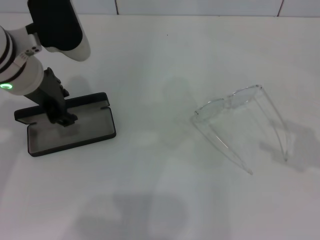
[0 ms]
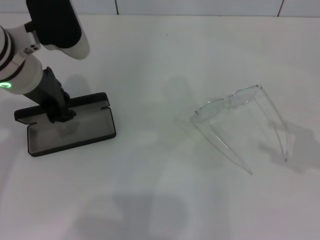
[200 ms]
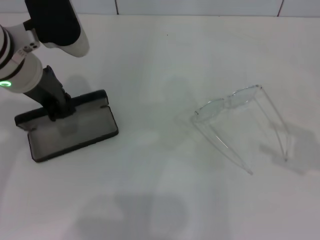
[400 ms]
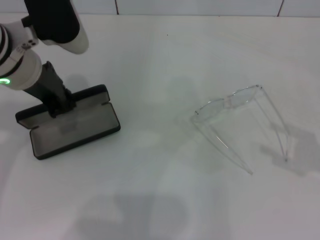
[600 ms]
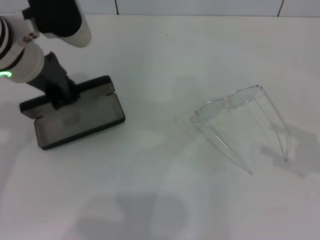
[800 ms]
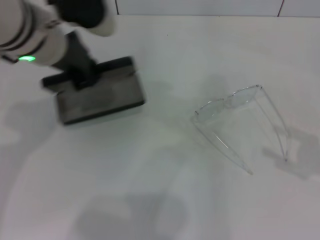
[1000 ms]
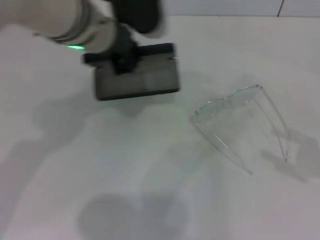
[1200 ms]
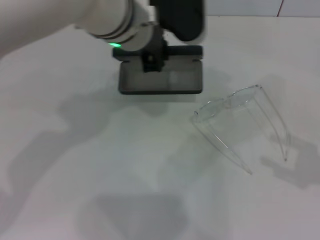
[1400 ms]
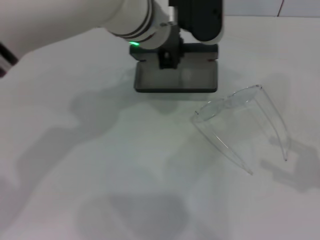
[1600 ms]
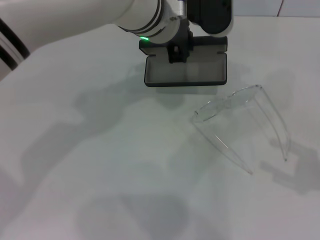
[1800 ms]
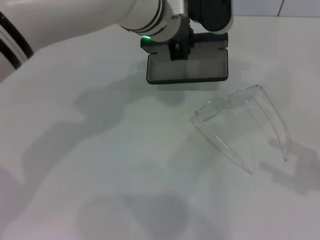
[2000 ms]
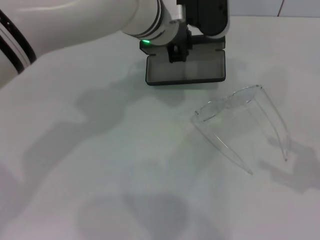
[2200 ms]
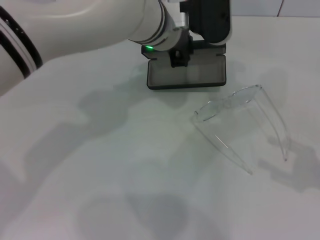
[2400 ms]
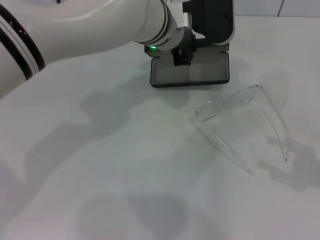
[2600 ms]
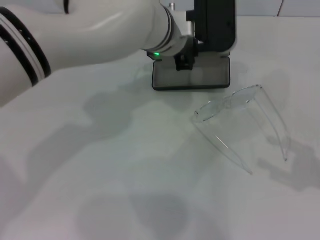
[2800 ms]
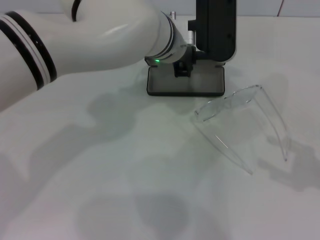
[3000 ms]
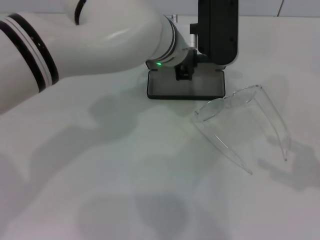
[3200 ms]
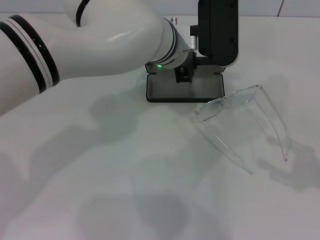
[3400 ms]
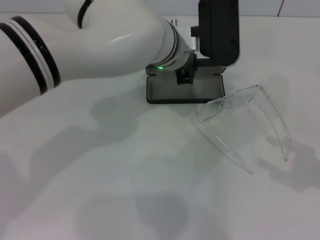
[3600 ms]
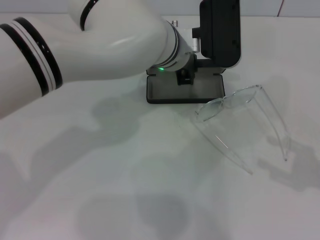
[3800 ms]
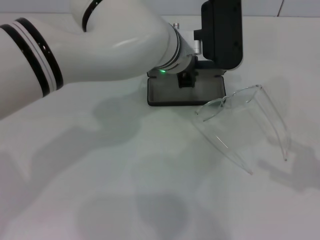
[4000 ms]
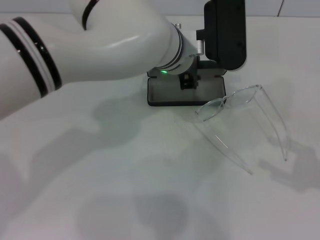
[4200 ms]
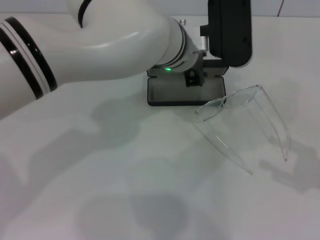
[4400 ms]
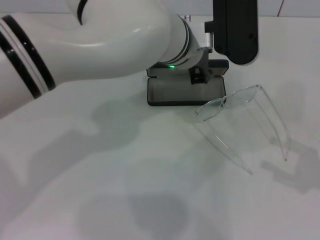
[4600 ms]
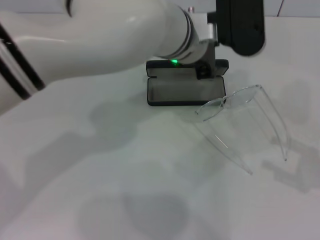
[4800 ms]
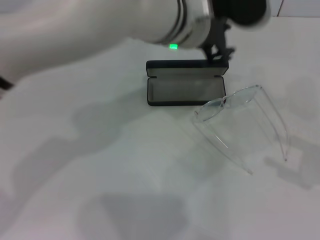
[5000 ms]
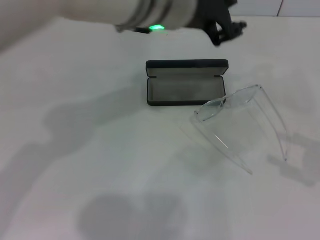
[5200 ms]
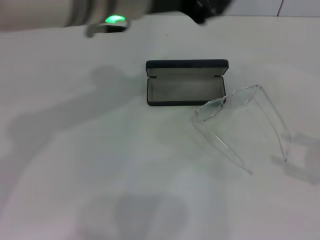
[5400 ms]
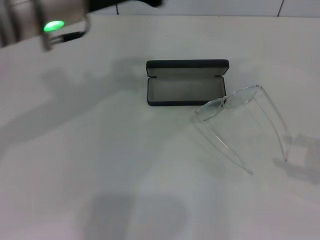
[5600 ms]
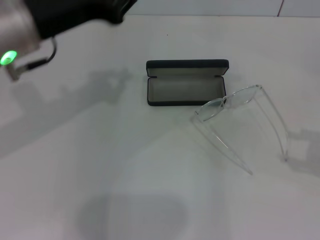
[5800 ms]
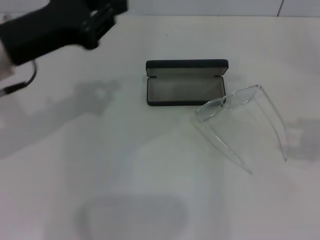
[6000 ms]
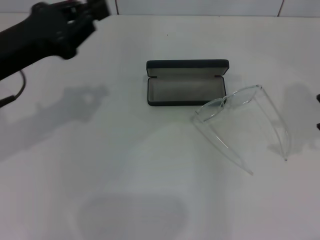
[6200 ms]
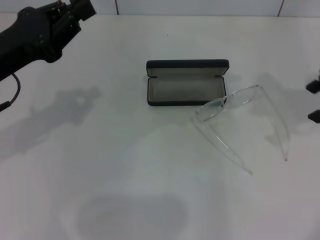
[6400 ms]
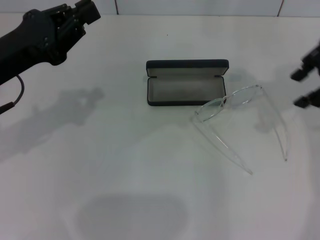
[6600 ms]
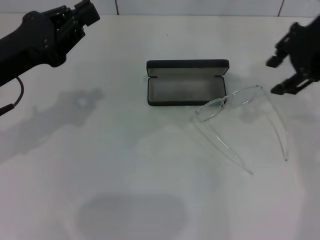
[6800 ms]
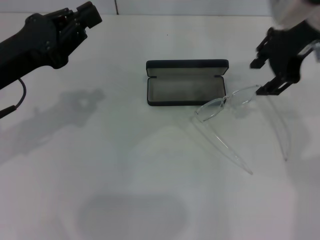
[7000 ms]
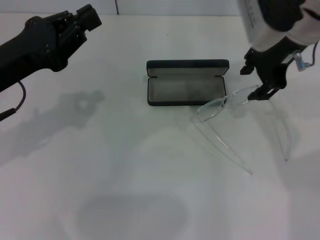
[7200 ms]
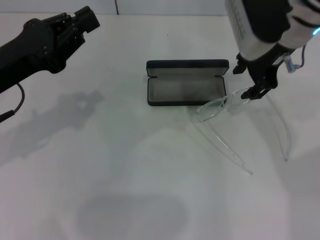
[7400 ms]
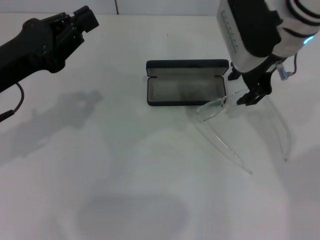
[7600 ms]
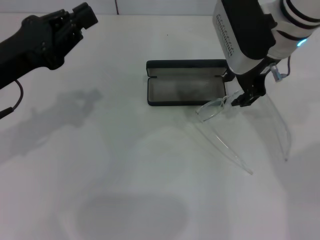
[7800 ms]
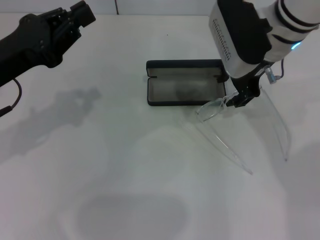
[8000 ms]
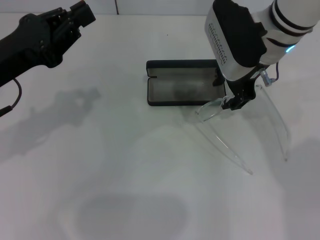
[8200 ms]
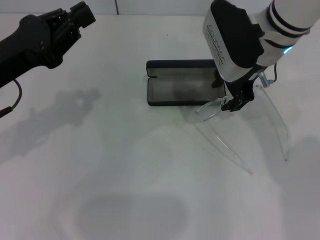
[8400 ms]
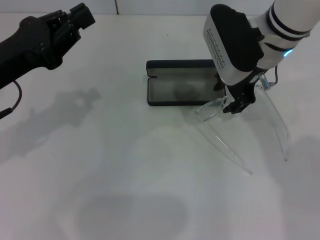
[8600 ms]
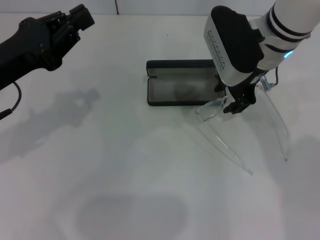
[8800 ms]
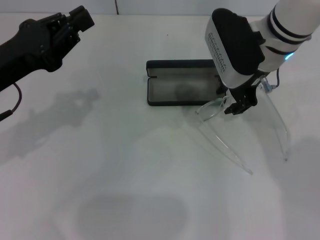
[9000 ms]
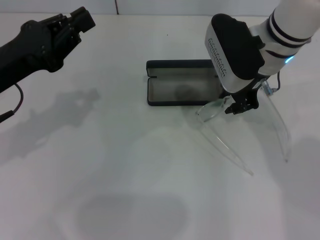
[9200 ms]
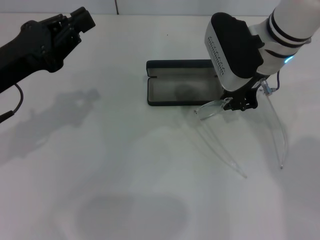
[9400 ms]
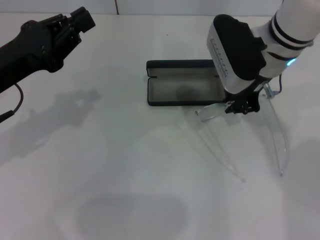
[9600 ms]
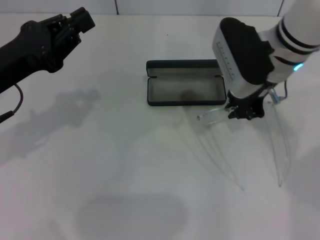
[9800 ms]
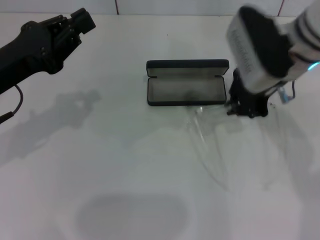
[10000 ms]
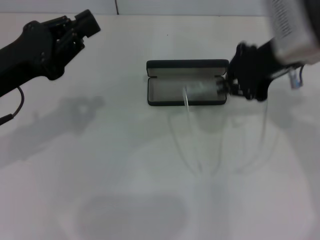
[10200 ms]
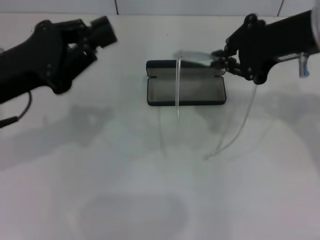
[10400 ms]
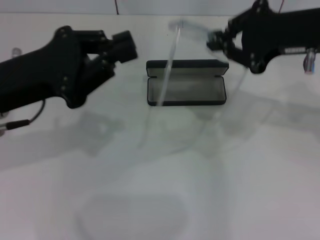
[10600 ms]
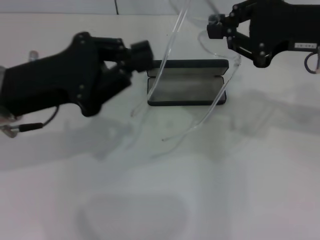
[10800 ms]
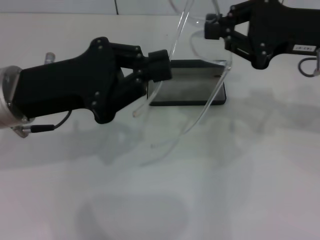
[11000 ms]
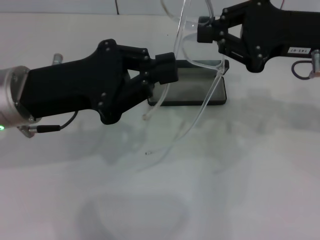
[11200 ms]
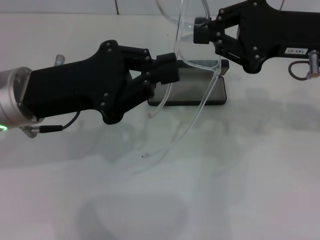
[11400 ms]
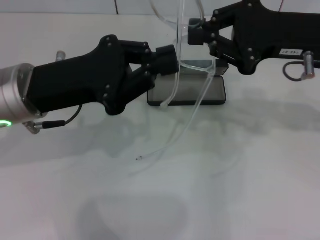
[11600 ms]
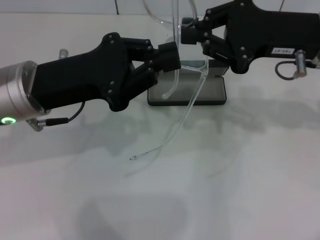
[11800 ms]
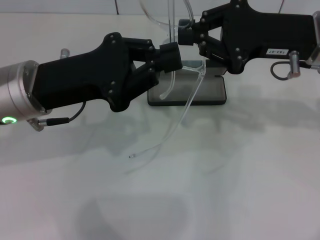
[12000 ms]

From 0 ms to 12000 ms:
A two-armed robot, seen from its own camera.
Step, from 600 ms to 4600 ms: Place the glasses case in the center of the table with your left hand.
Step, from 4800 ms to 9800 ms: Grab the eyeglass frame with your right hand.
From 0 ms to 1600 ms: The left gripper travels to the right by about 15 cm, and closes its fingers.
From 1600 ms to 3000 ms: The left gripper shifts by some 5 cm.
From 3000 ms to 4400 ms: The grippers stay close to where they were, moving slightly.
From 4400 ms to 6000 ms: The left gripper goes approximately 25 cm to the left. Meanwhile the right gripper travels upward and forward by about 15 cm.
From 6000 ms to 7600 ms: The right gripper is displaced to the left and forward by roughly 25 cm. Meanwhile the left gripper ends up some 5 cm from where it was.
From 7600 ms to 9000 ms: The grippers make only small movements.
From 9000 ms to 10400 ms: The right gripper heads upward, to the right and backward, covering some 10 cm, and closes up.
From 10400 ms to 12000 ms: The left gripper shifts some 5 cm to the right.

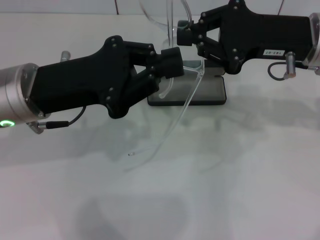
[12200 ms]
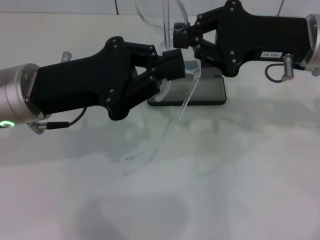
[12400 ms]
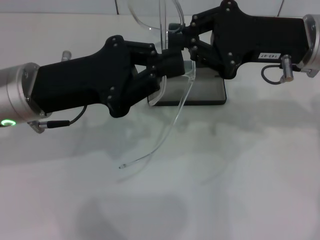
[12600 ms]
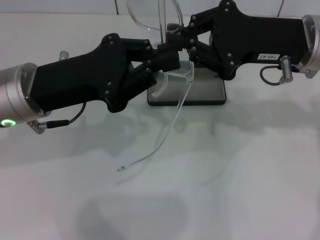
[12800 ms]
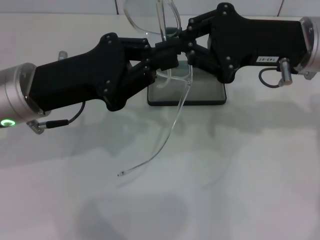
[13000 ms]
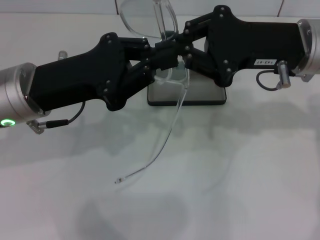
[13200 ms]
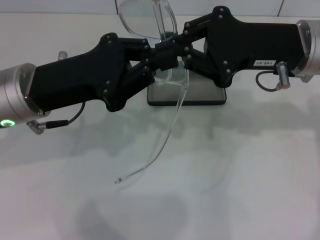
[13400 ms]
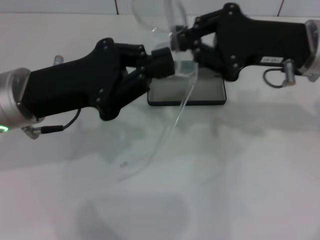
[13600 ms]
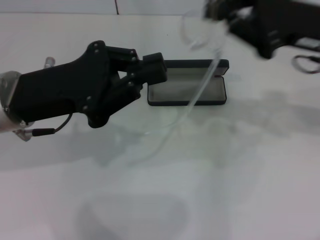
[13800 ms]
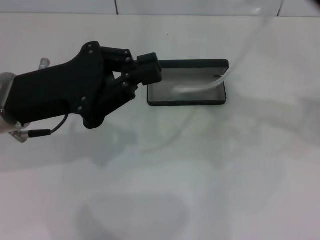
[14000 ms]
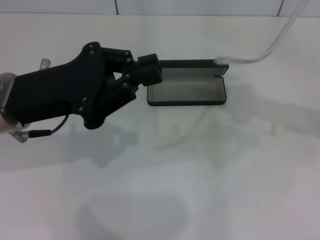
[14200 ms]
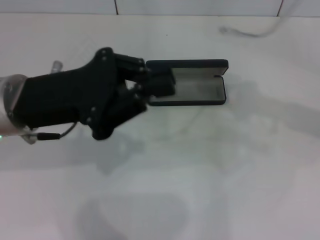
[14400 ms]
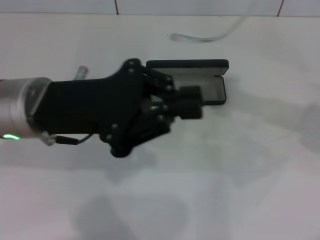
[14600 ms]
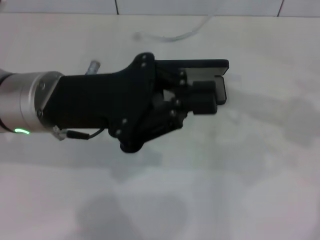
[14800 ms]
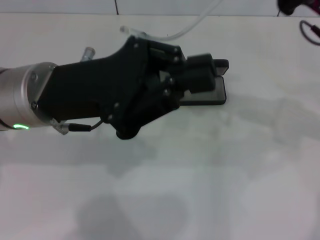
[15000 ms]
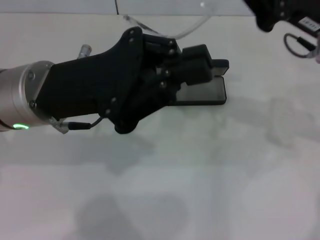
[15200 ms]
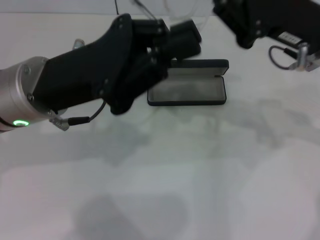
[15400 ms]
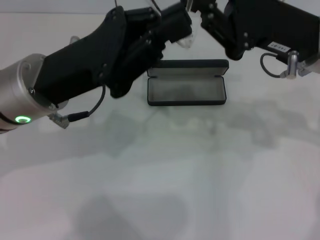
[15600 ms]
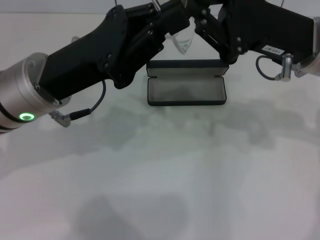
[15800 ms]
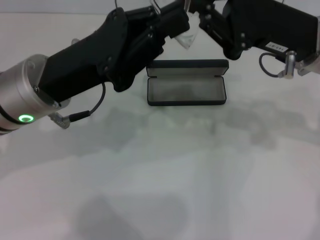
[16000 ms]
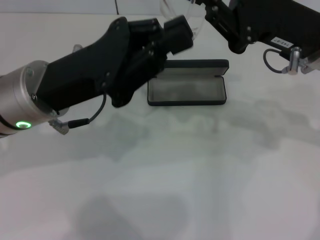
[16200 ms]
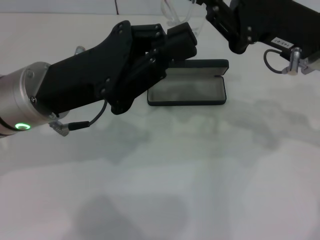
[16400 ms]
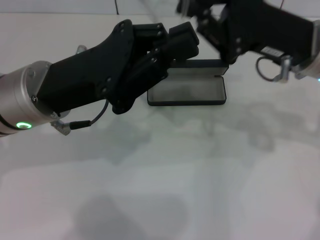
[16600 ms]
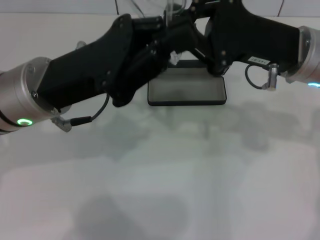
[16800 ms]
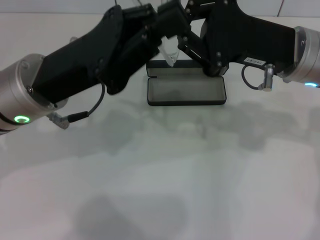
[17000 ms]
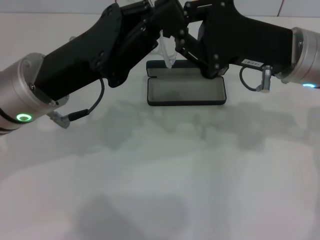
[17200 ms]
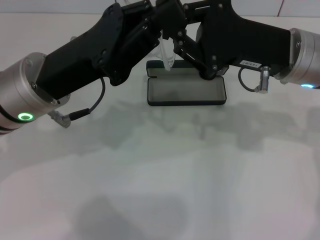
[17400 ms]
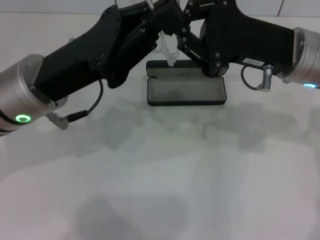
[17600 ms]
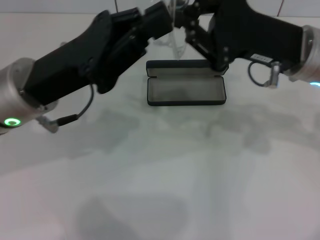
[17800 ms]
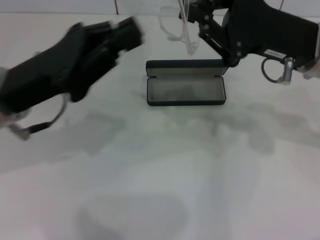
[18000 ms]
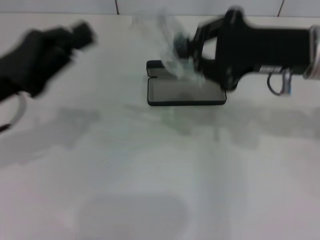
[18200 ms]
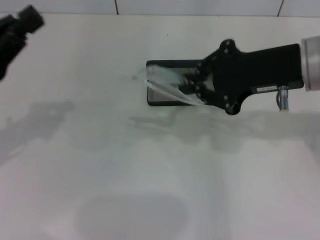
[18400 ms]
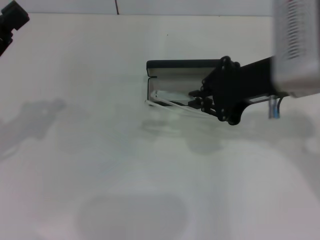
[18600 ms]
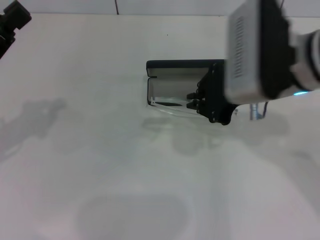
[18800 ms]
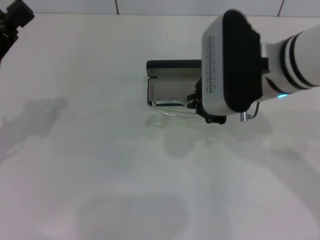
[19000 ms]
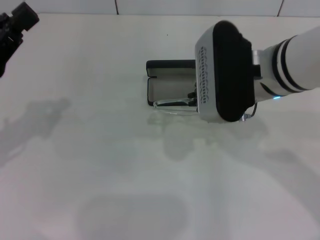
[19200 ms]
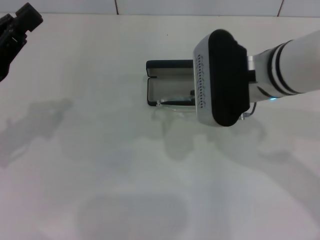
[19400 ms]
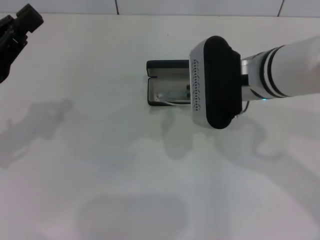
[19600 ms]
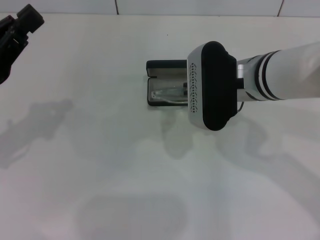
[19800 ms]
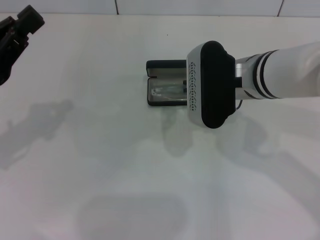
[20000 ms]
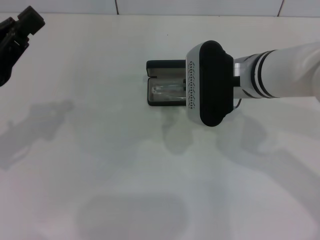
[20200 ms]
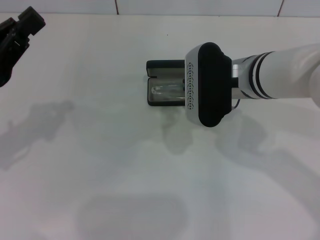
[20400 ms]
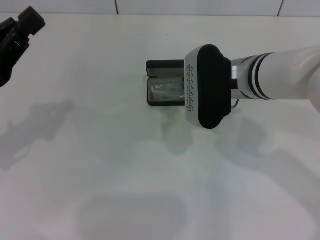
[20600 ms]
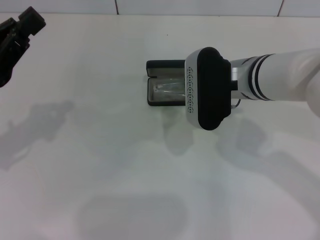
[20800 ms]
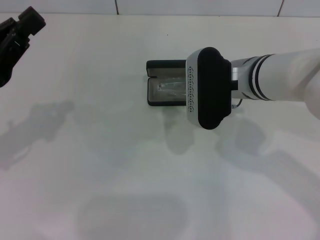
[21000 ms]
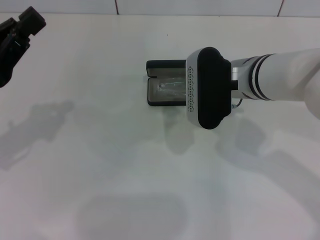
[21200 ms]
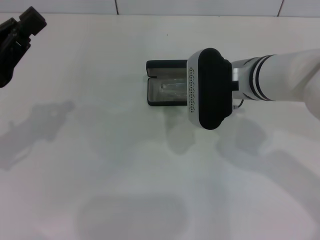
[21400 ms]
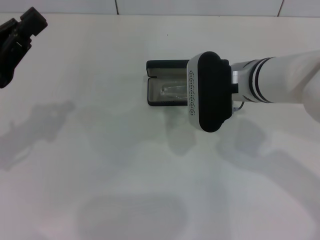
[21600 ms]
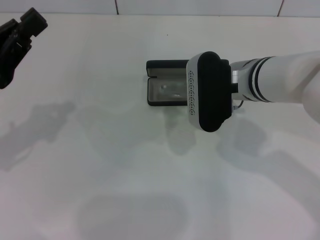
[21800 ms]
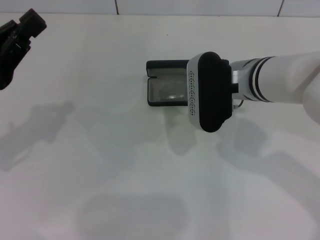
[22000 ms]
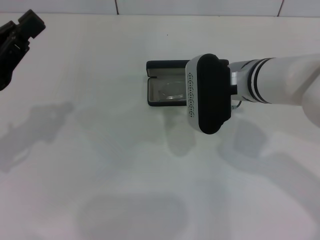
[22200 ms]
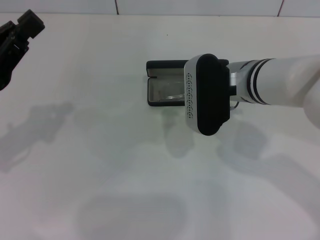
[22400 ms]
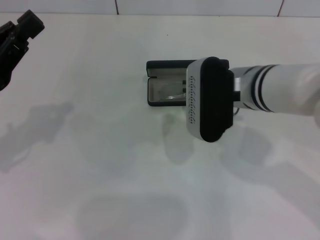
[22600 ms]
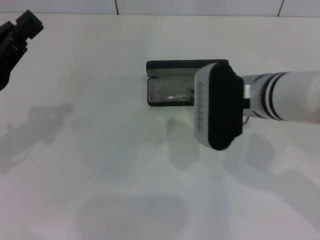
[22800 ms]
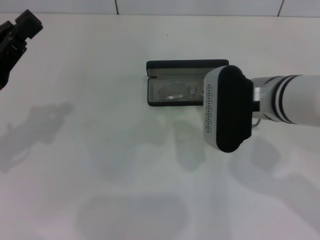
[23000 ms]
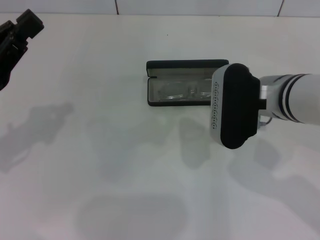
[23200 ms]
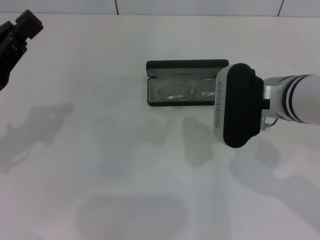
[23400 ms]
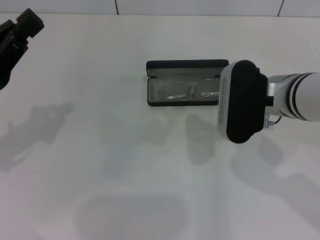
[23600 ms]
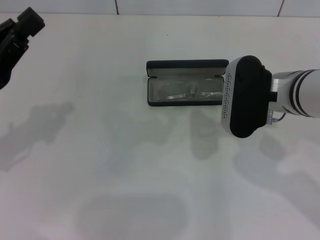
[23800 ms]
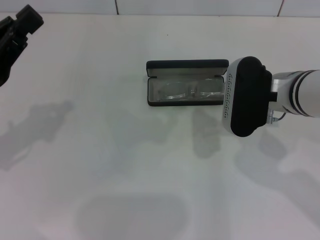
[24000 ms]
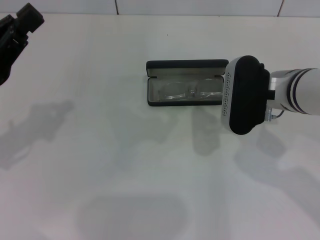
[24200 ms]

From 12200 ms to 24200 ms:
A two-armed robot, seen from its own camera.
Step, from 12200 ms to 17400 ms: Fold the frame with your left hand.
Step, from 17600 ms to 23000 ms: Put the glasses into the case with your right hand.
From 12200 ms to 13800 ms: There are only small adjustments of the grippers.
From 13800 ms to 15200 ms: The right gripper travels to the right and back again, approximately 5 cm each way.
From 15200 ms to 16600 ms: There are only small adjustments of the grippers.
From 16600 ms to 18200 ms: The left gripper travels to the left by approximately 10 cm.
From 18200 ms to 19800 ms: The right gripper moves to the left, about 10 cm.
From 19800 ms to 22600 ms: The grippers move only a little.
From 22600 ms to 24200 ms: The right gripper moves to the right, some 5 cm.
